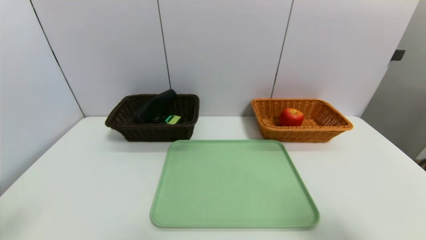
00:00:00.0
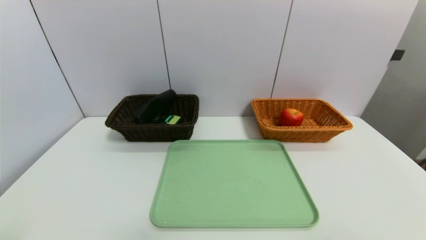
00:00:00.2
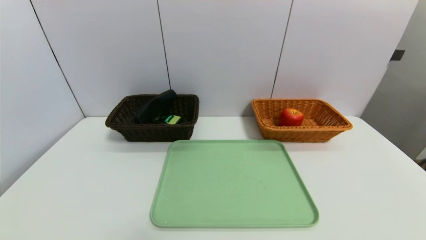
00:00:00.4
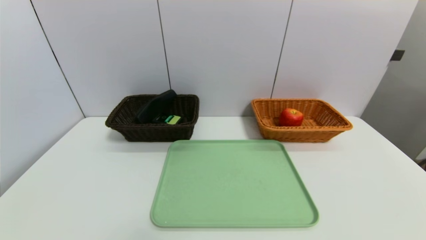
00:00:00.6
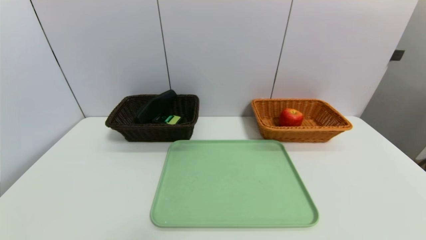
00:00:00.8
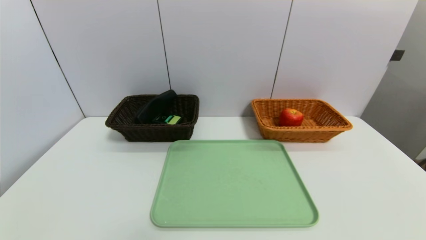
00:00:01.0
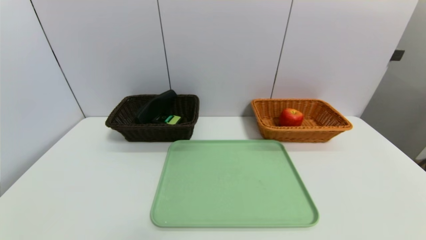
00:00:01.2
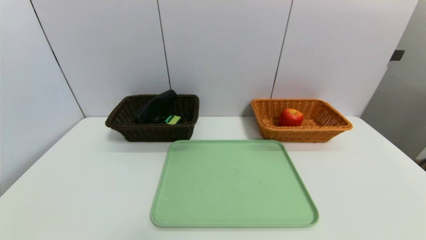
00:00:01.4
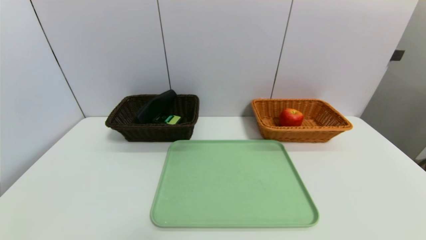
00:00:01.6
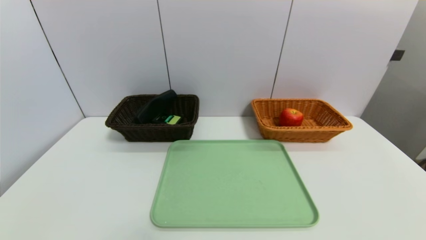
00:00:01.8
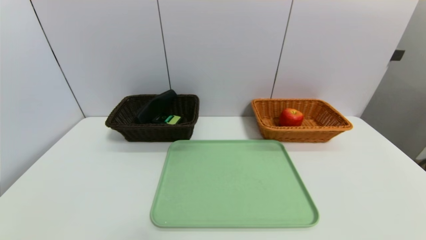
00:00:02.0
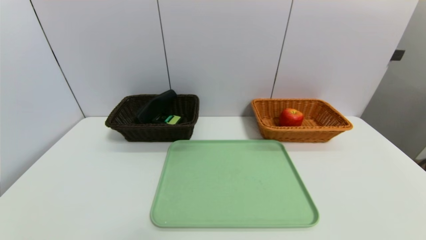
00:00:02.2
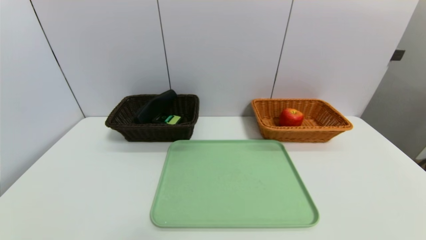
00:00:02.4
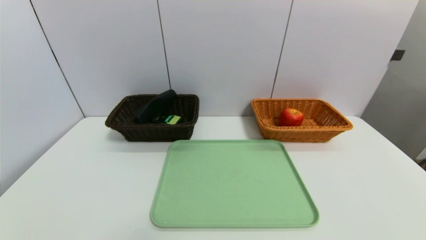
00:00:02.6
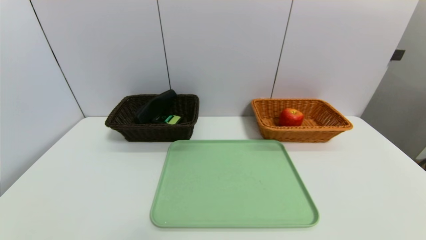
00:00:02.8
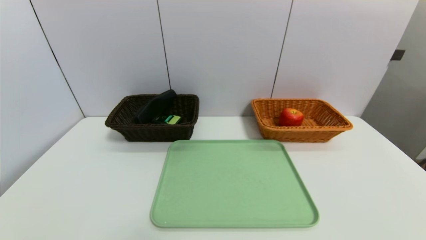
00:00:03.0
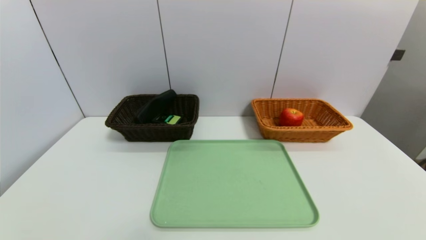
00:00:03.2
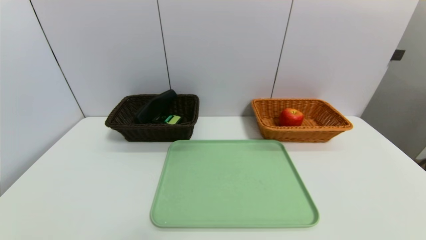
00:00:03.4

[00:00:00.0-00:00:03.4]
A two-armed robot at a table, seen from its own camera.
Task of the whole recording: place the food in the right basket with the right gripper, and place the non food items in the left basket with the left gripper.
00:00:00.0 to 00:00:01.6: The right gripper heads downward, covering about 20 cm.
